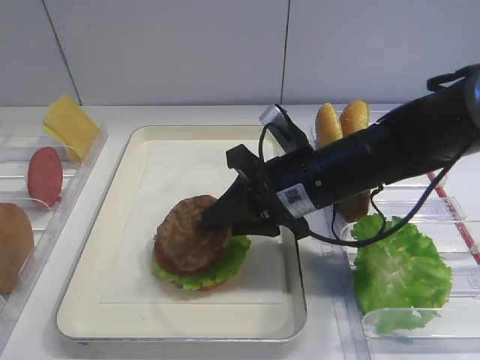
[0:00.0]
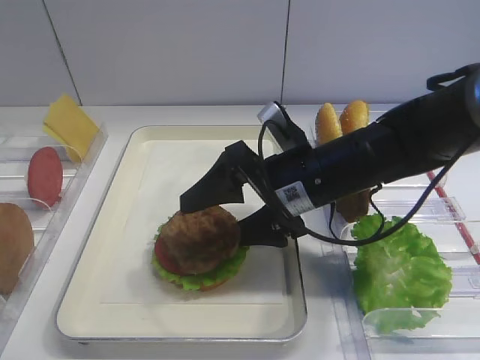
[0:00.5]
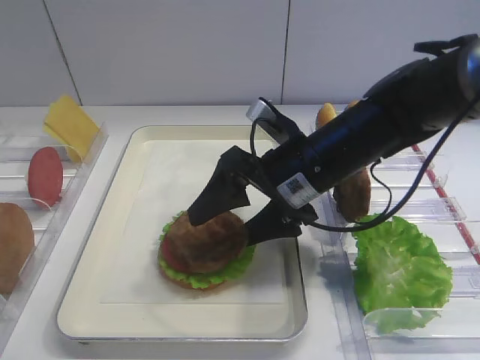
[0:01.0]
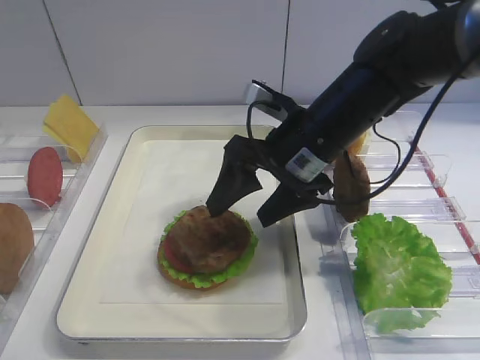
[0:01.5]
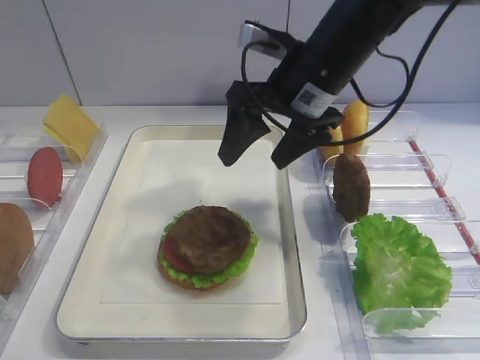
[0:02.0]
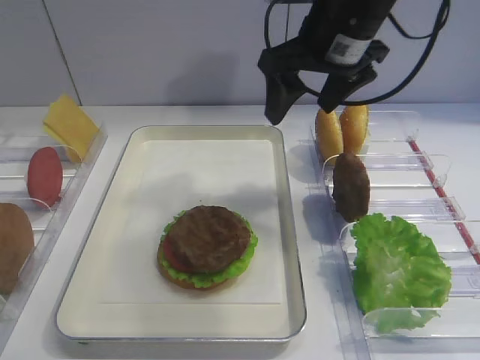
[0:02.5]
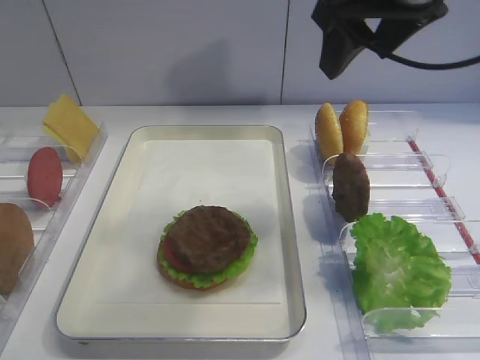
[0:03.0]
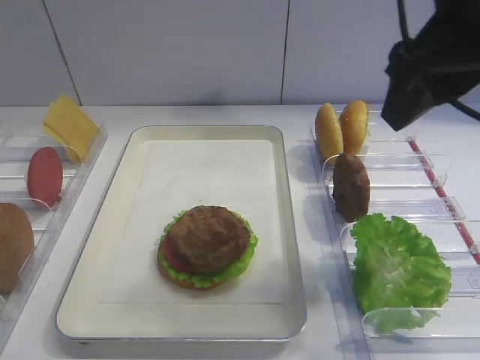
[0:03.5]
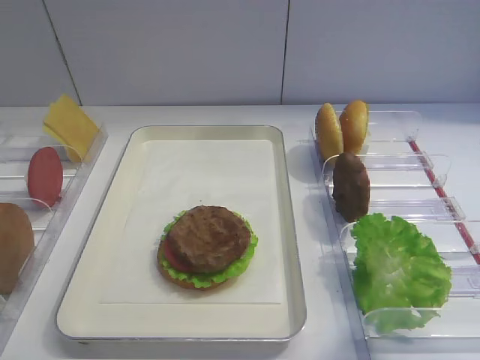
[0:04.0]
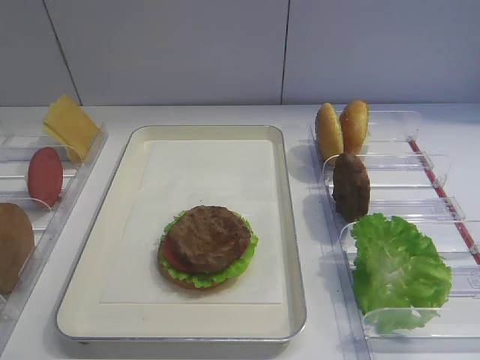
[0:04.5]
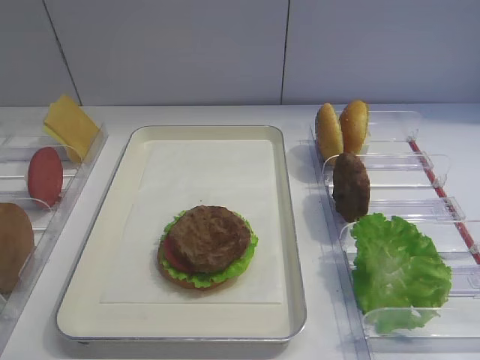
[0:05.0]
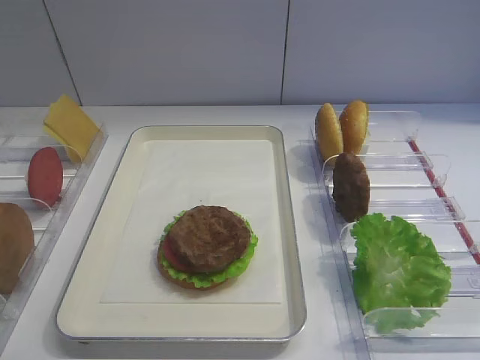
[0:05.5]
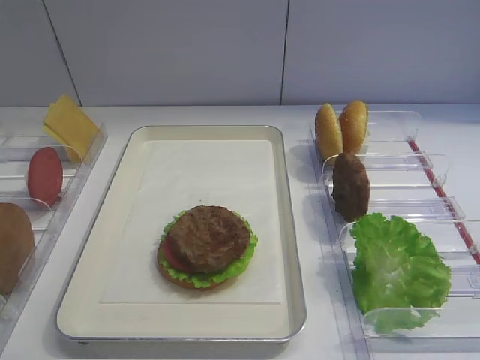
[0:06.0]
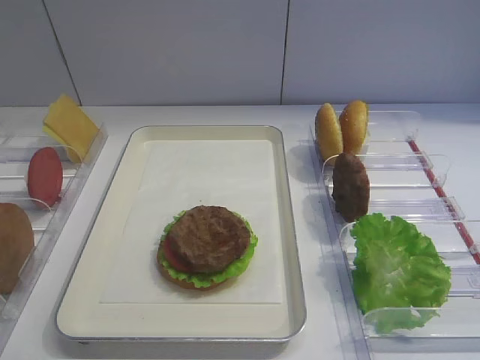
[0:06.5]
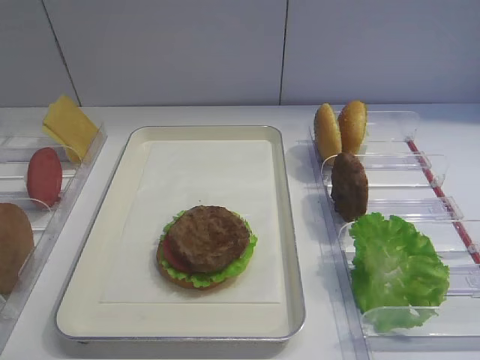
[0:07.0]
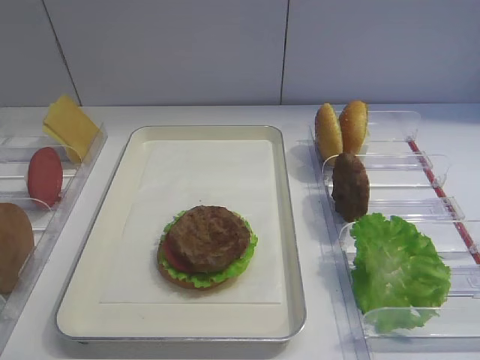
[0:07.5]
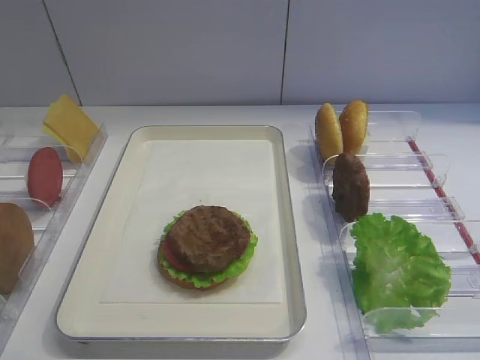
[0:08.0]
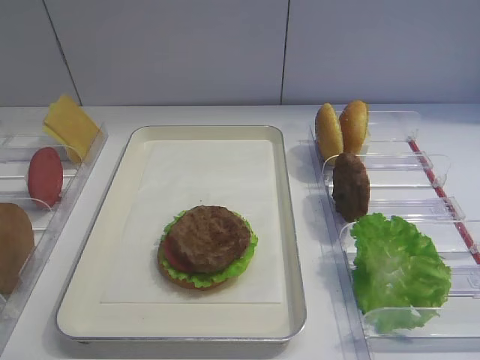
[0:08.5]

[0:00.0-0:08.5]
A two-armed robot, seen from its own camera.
Step, 0:00.0 to 0:02.0: Place the cutlet on the tomato slice with the right gripper.
0:00.0 to 0:02.0: The right gripper goes roughly 10 cm upward and forward, and opens up.
0:02.0 to 0:04.0: The right gripper moves backward, to the right and upward, roughly 25 cm.
0:04.0 to 0:06.5: The right gripper goes roughly 20 cm backward, downward and to the right.
